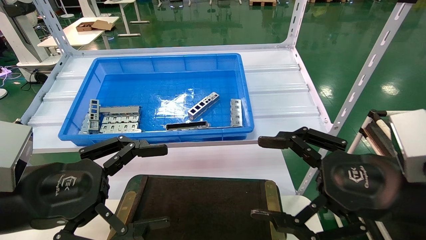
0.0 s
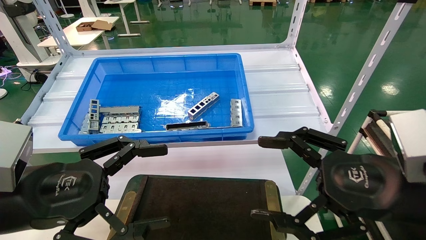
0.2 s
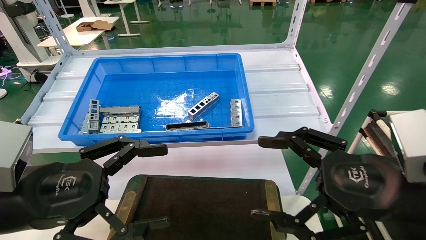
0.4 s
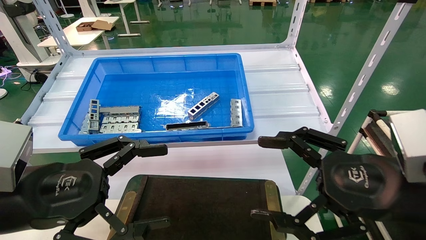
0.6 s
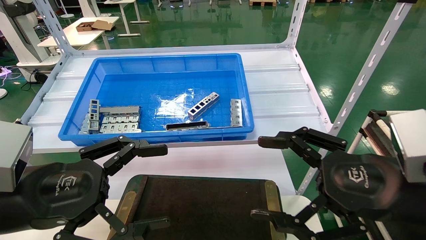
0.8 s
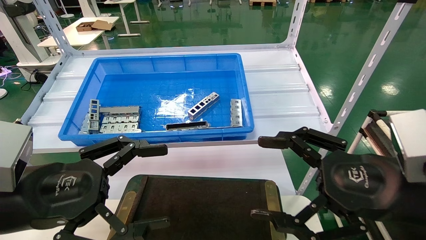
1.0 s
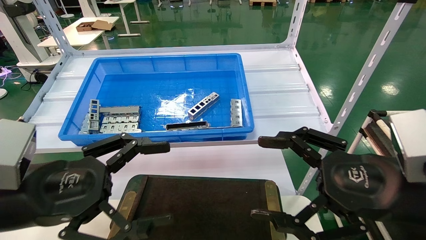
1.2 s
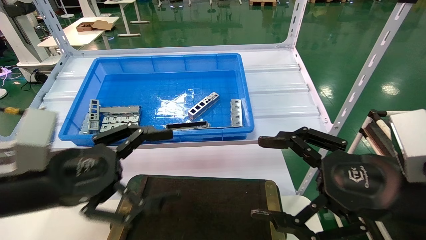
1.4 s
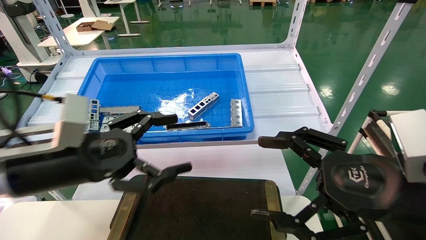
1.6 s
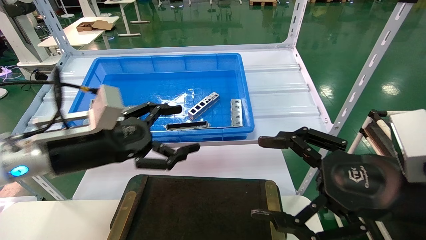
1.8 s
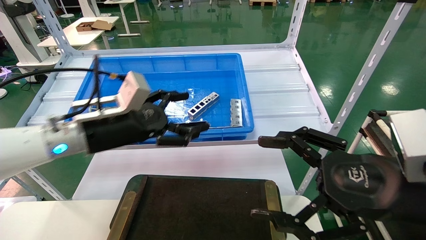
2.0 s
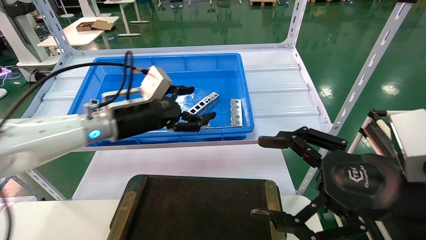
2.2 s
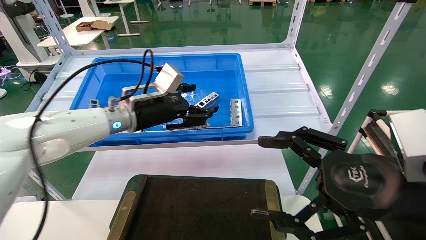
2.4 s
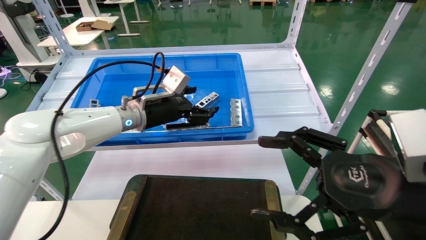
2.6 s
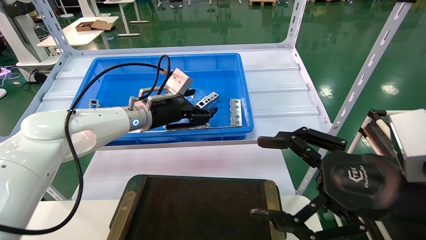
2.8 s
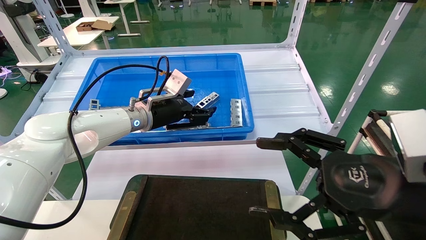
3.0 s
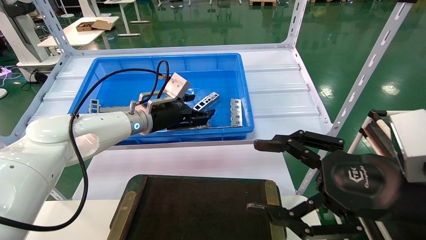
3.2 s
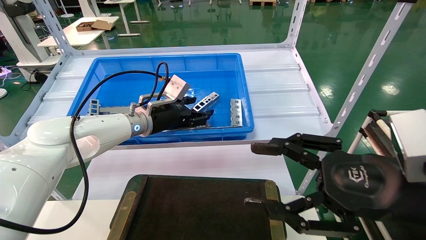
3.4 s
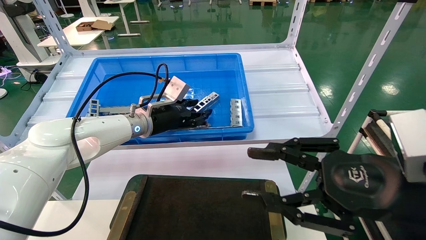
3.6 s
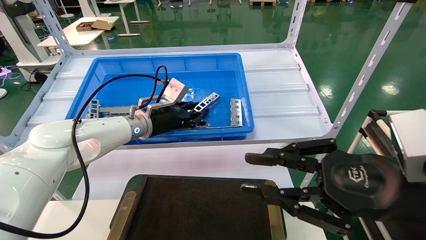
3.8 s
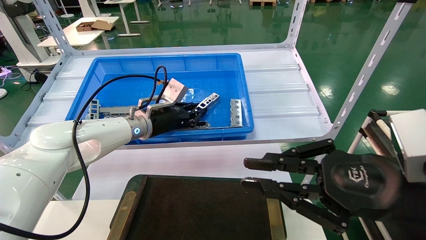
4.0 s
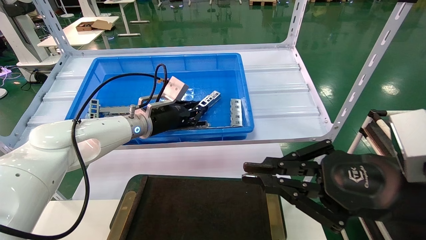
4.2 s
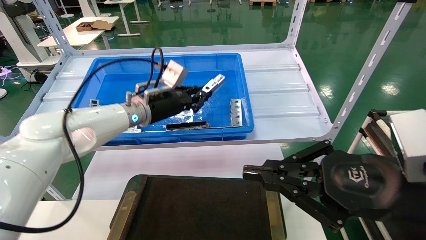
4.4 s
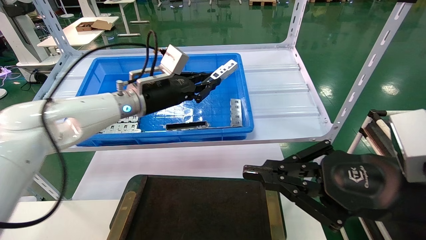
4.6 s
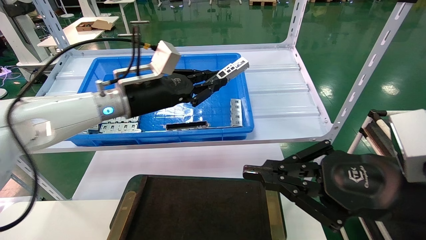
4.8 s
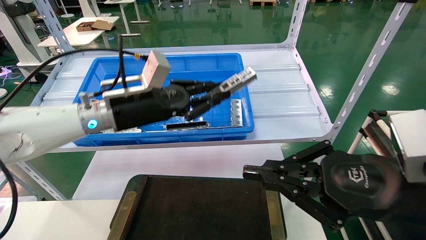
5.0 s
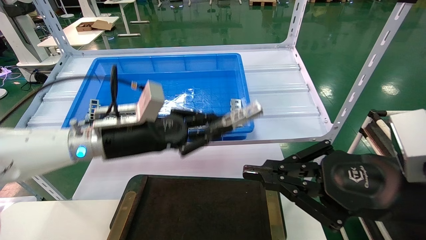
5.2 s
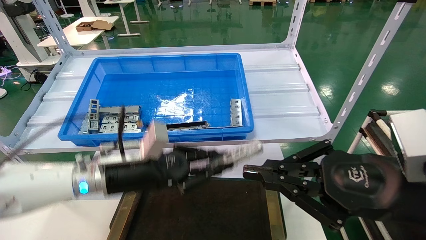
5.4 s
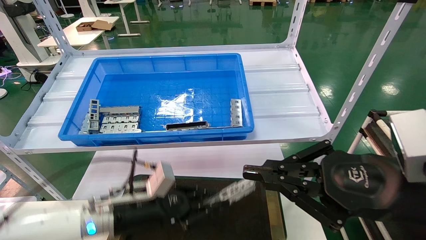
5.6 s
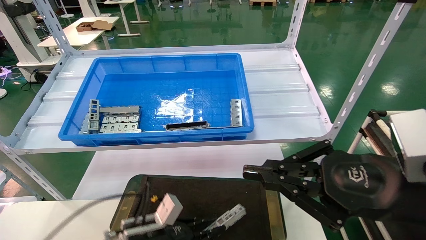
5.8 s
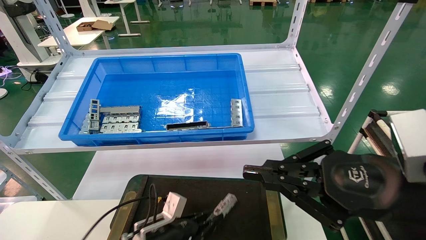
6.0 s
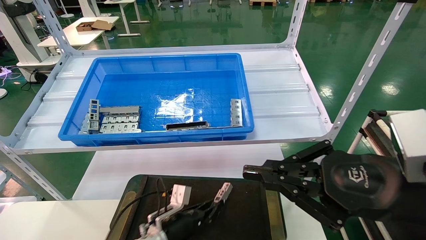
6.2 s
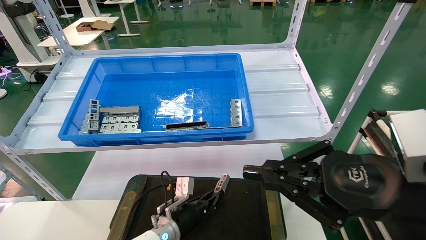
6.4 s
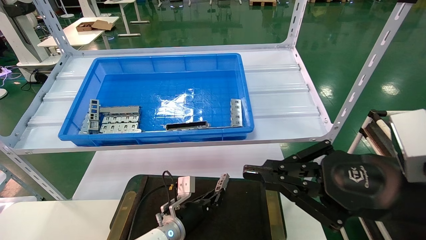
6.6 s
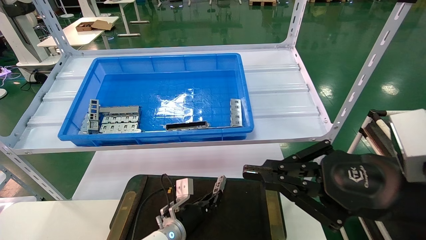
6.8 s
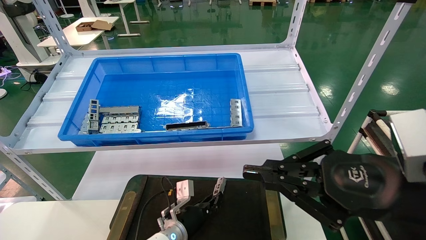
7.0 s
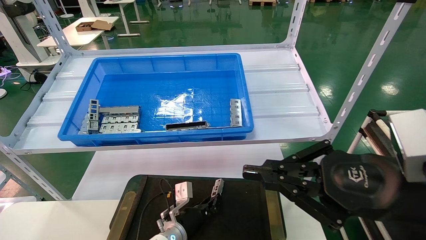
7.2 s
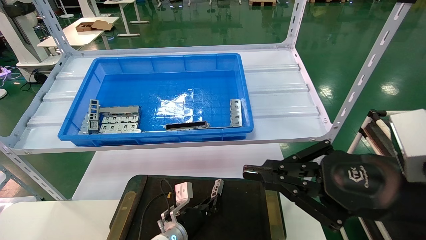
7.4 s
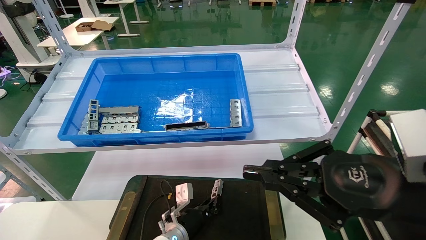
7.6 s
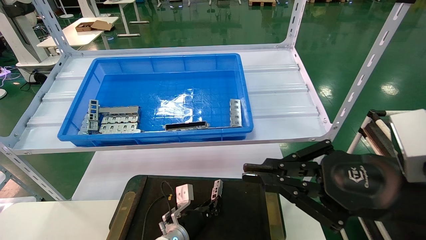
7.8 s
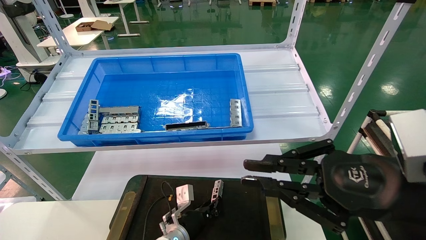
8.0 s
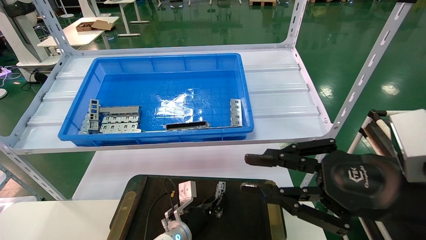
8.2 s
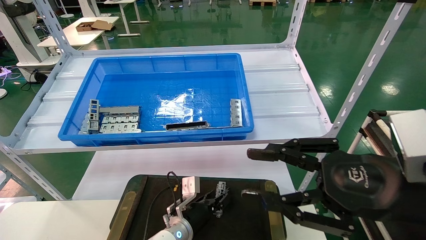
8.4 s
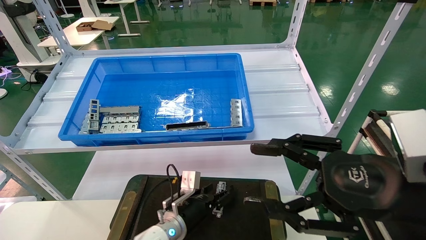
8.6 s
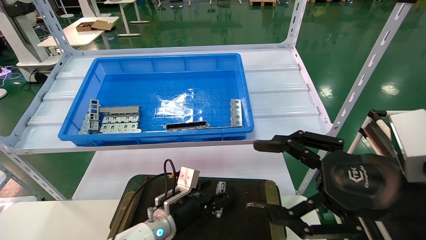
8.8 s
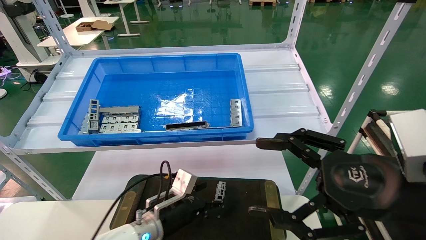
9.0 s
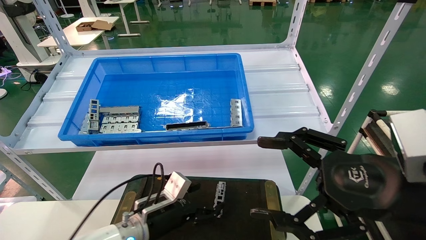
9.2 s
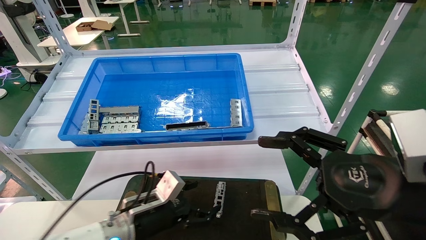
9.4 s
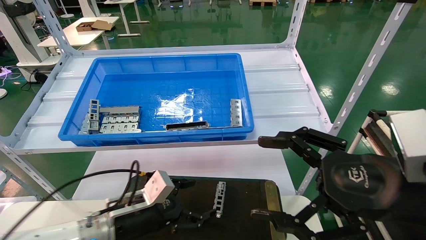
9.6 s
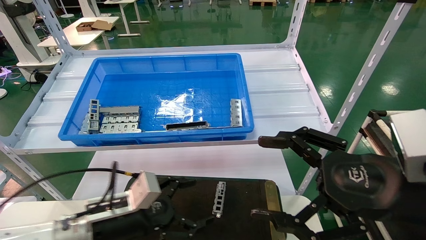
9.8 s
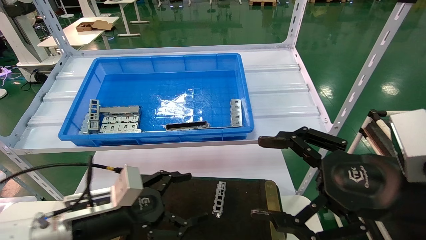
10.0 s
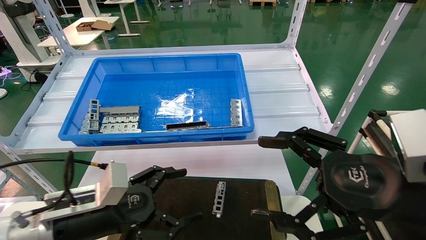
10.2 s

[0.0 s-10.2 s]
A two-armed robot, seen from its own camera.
Task of the whole recording: Grasp the part with one hand and place it on the black container.
Step, 1.6 to 3.8 s: Pick up the front USB bracket from the feeding area.
Step, 4.0 to 7.8 s: Place the front USB bracket into the box.
0.0 to 1.4 s: The grippers move only a little.
1.4 to 3.0 s: The left gripper travels forward by about 25 cm.
3.0 to 4.4 s: The right gripper closes its fingers. The left gripper closes up.
4.4 to 5.8 s: The left gripper moves downward and backward, roughly 30 cm.
5.8 to 7.2 s: The left gripper shifts some 15 cm to the right, forward and downward.
7.2 to 8.8 s: The left gripper heads upward, covering roughly 5 cm, and opens up. Meanwhile the right gripper opens its fingers.
8.8 to 10.2 s: The left gripper travels to the left, upward and backward by some 20 cm.

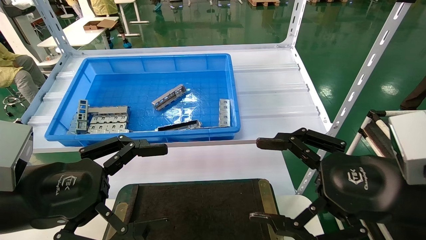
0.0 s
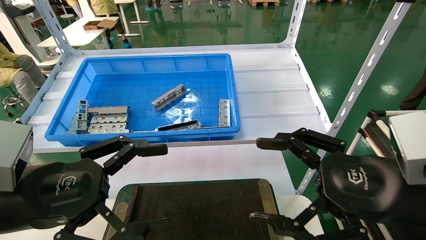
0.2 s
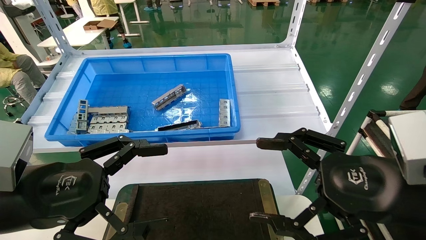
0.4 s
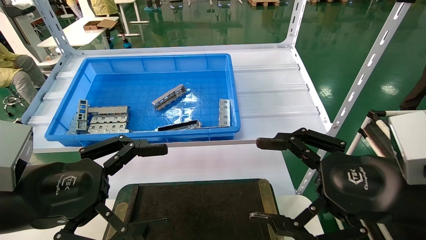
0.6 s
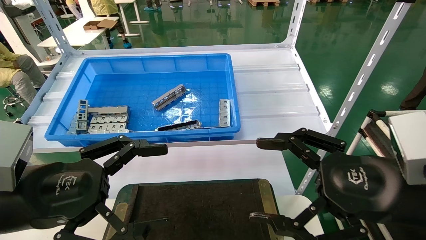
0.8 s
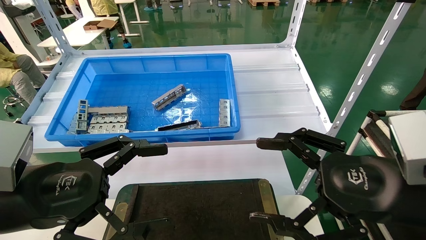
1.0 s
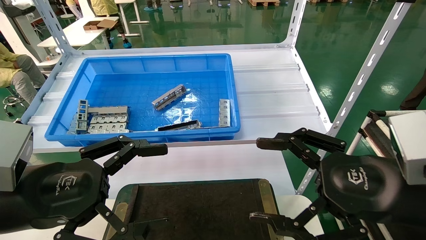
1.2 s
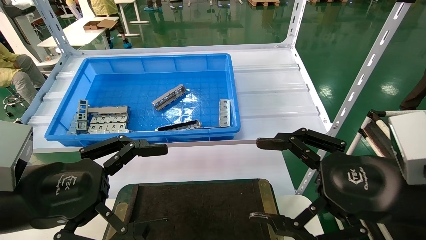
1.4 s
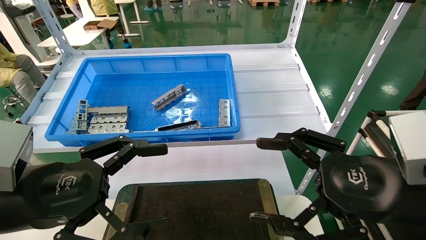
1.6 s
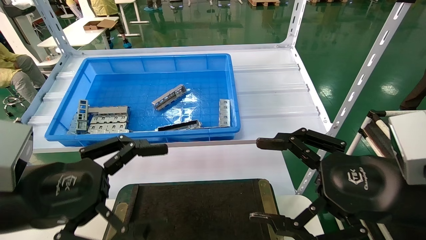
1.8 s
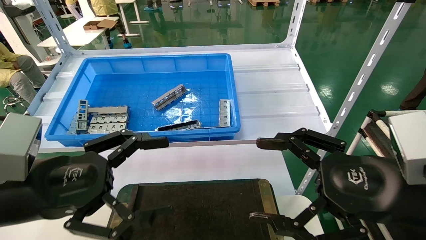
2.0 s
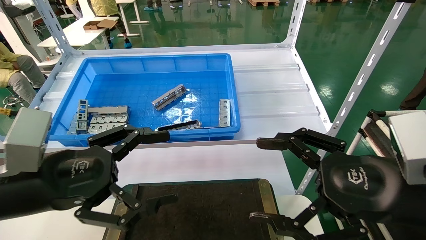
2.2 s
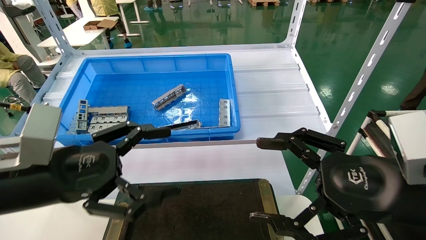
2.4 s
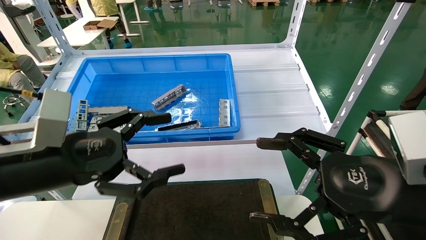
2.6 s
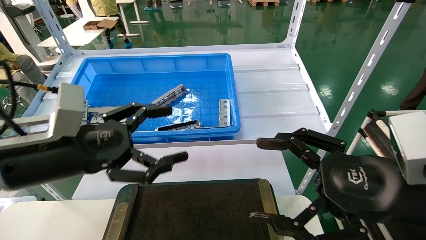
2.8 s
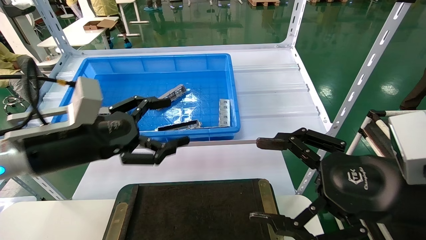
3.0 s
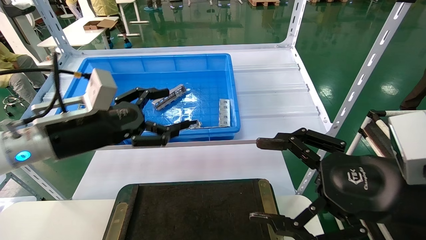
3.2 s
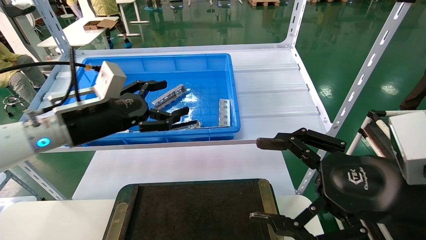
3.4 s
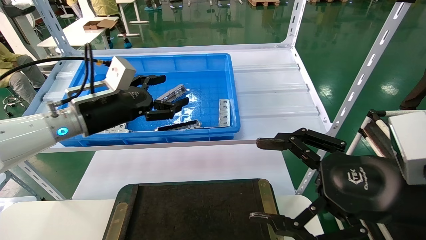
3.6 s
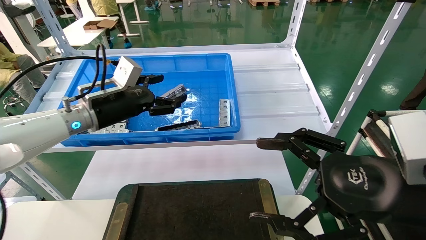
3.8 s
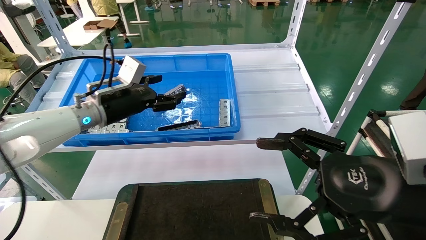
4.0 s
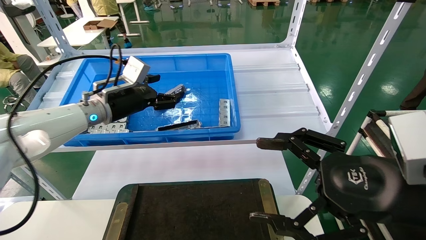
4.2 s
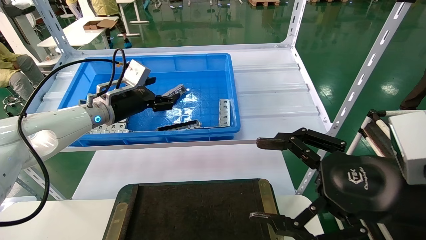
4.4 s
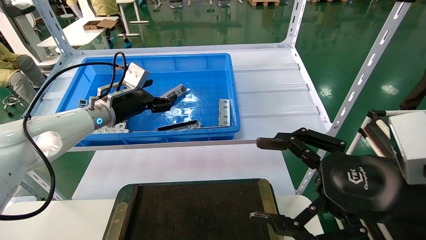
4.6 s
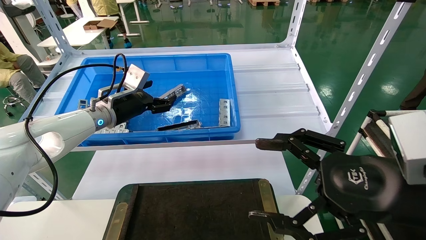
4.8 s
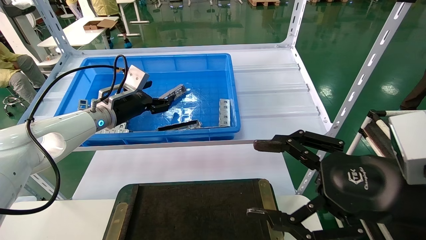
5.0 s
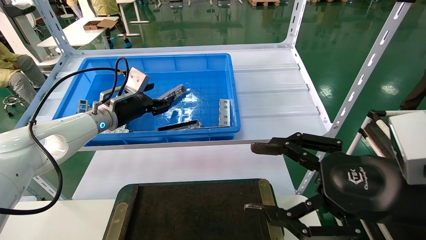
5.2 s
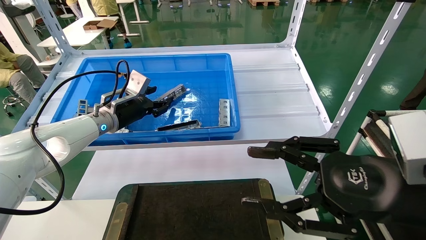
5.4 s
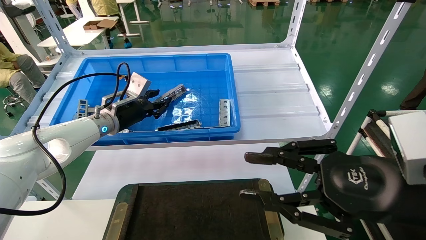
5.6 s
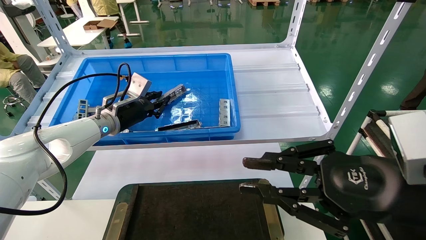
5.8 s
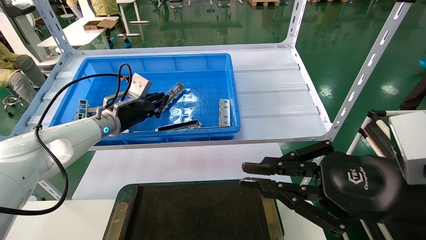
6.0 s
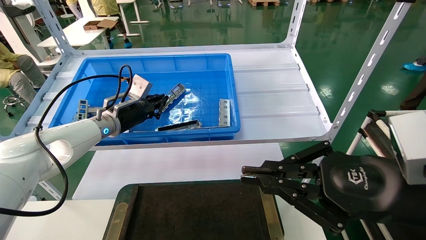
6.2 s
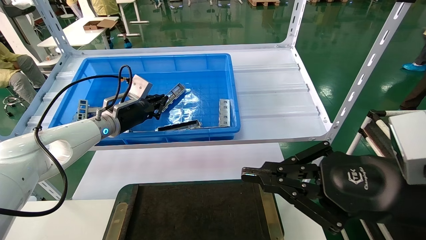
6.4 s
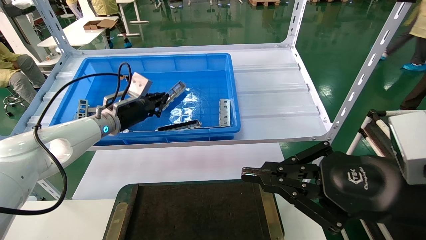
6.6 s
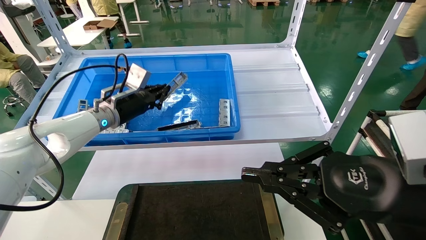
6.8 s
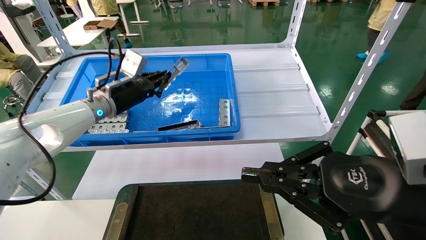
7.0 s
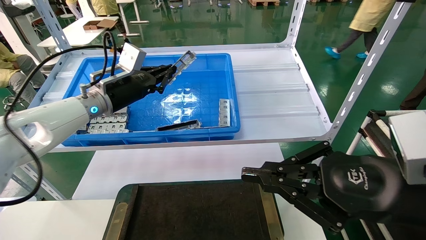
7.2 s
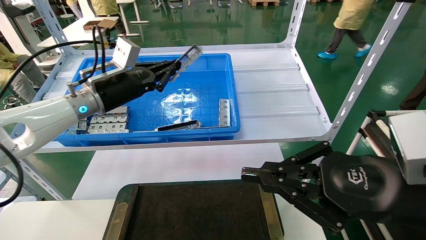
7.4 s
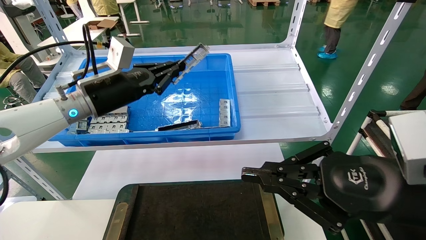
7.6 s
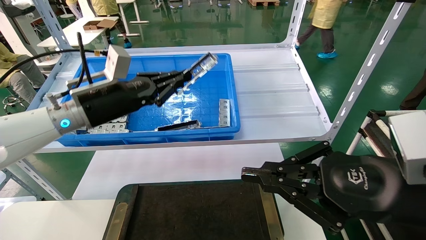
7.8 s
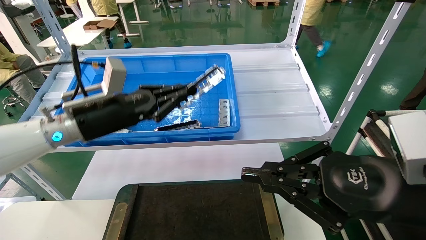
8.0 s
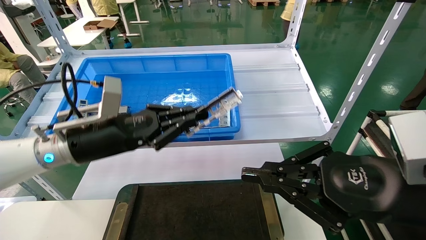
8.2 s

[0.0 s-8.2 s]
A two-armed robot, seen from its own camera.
Task of the whole recording: Grasp the part with one hand and place it on the black container.
Step, 2.0 to 7.0 s: Pick up the front USB bracket from the feeding area.
0.0 to 1.6 s: Both grippers stay about where they are.
1.6 to 3.2 s: The left gripper shifts about 15 cm forward.
3.2 to 5.0 s: The left gripper moves forward, approximately 15 cm.
5.0 to 6.6 s: The left gripper closes. Meanwhile the right gripper closes its fingers.
6.6 to 8.2 s: The left gripper moves backward, roughly 15 cm.
